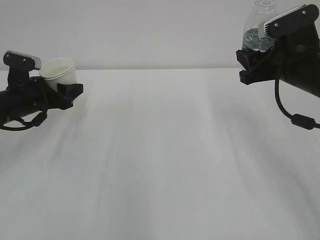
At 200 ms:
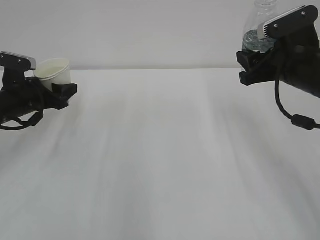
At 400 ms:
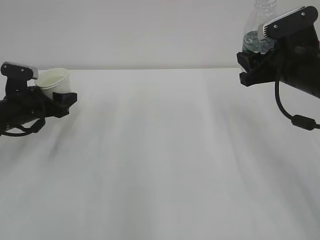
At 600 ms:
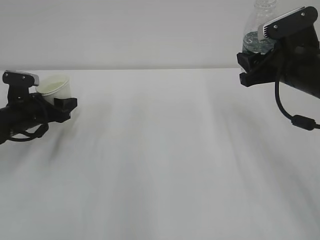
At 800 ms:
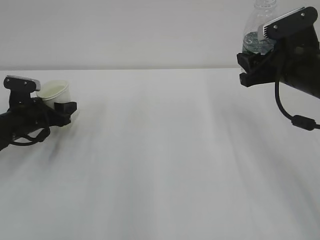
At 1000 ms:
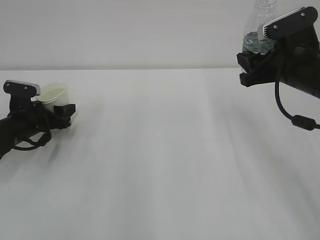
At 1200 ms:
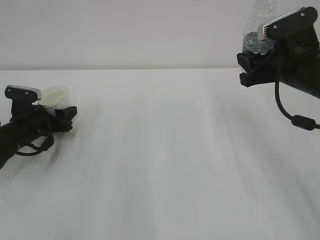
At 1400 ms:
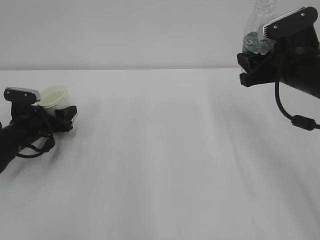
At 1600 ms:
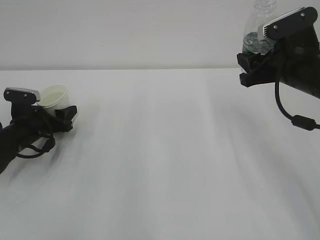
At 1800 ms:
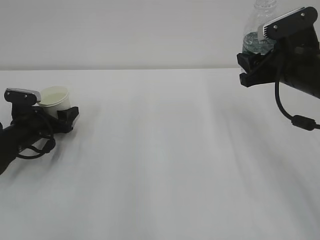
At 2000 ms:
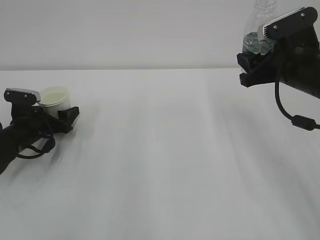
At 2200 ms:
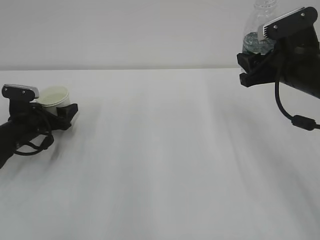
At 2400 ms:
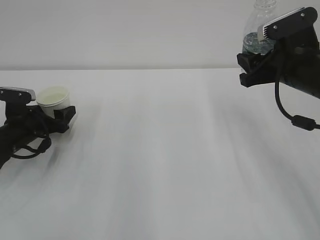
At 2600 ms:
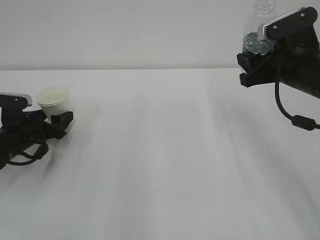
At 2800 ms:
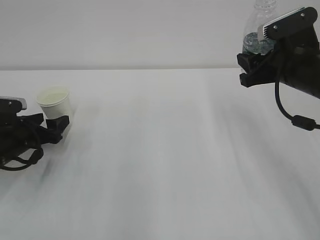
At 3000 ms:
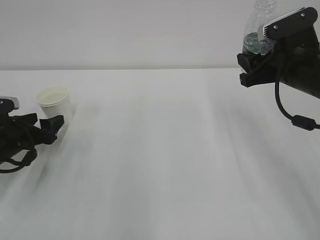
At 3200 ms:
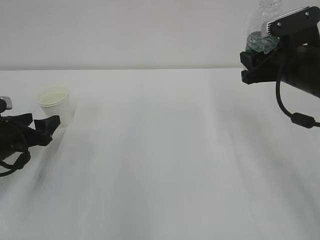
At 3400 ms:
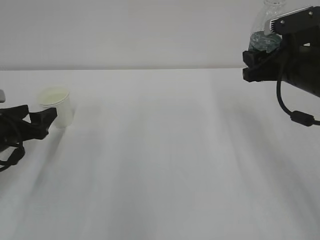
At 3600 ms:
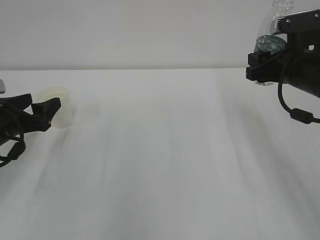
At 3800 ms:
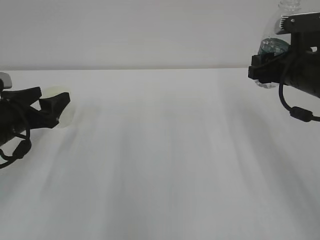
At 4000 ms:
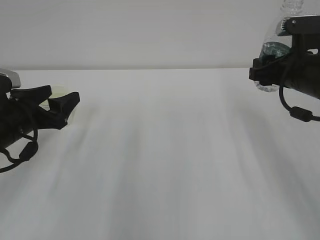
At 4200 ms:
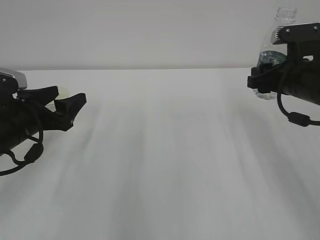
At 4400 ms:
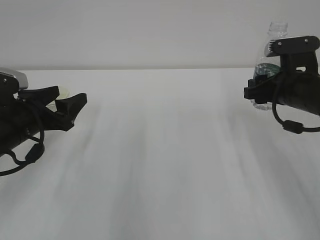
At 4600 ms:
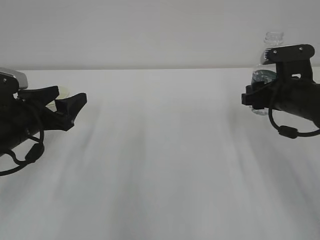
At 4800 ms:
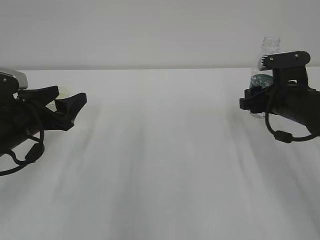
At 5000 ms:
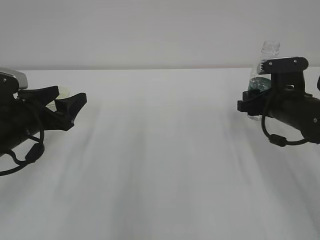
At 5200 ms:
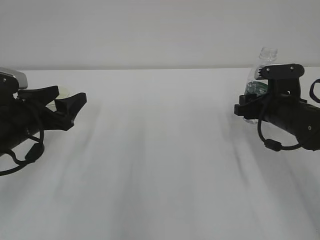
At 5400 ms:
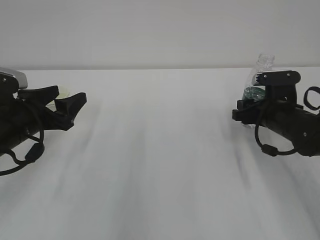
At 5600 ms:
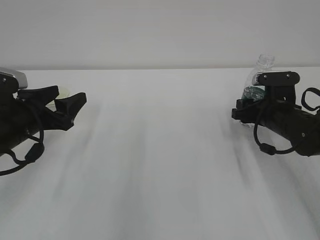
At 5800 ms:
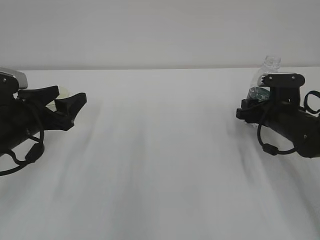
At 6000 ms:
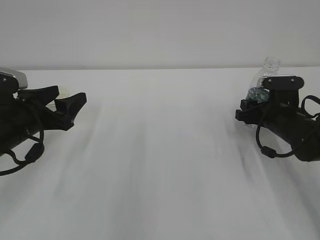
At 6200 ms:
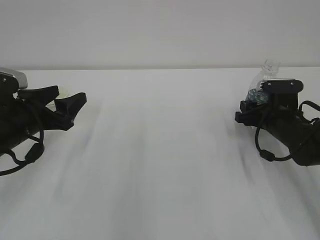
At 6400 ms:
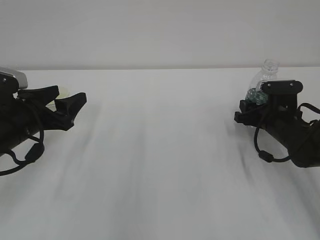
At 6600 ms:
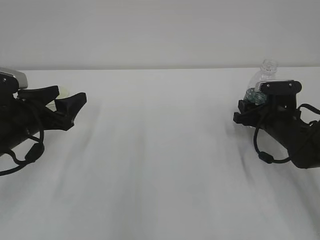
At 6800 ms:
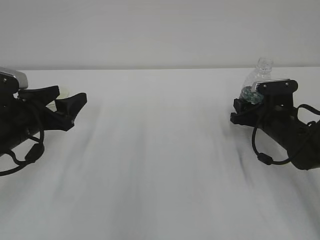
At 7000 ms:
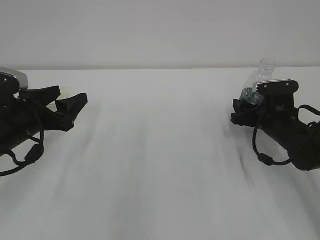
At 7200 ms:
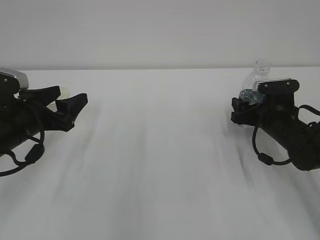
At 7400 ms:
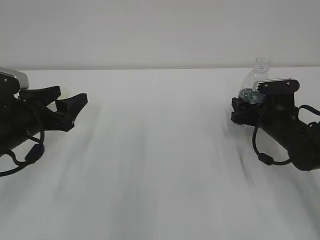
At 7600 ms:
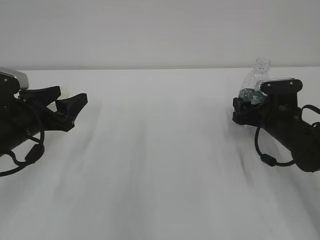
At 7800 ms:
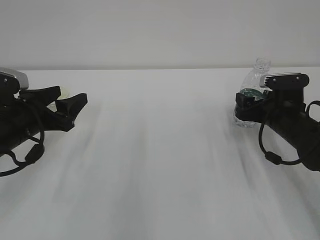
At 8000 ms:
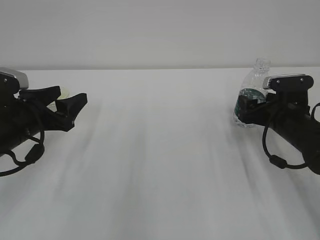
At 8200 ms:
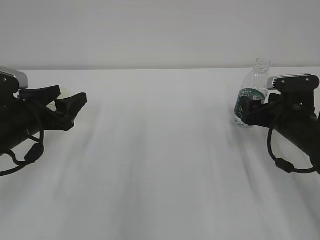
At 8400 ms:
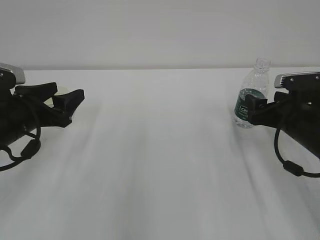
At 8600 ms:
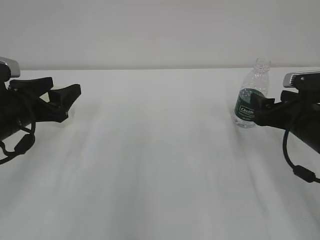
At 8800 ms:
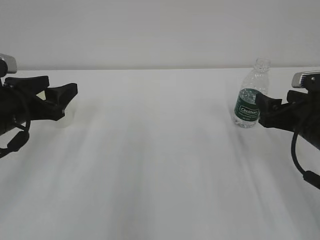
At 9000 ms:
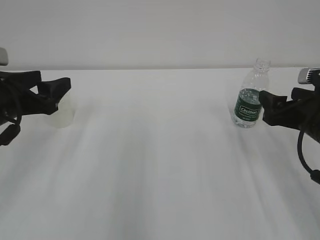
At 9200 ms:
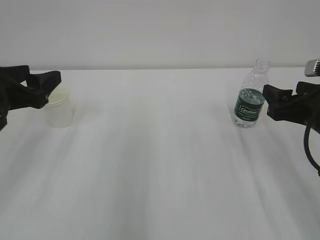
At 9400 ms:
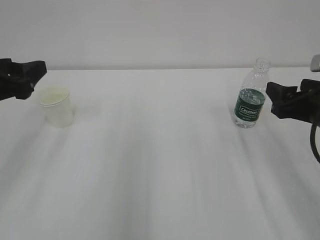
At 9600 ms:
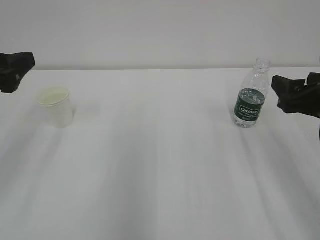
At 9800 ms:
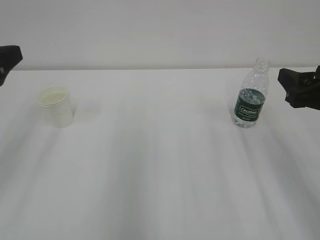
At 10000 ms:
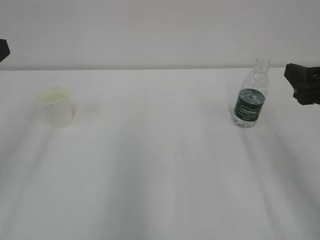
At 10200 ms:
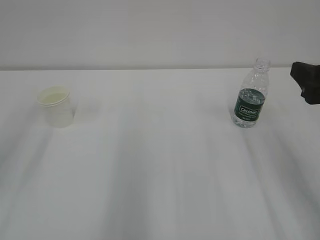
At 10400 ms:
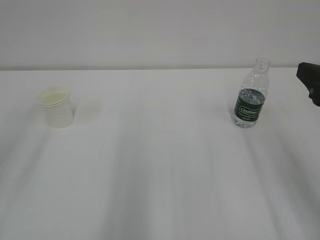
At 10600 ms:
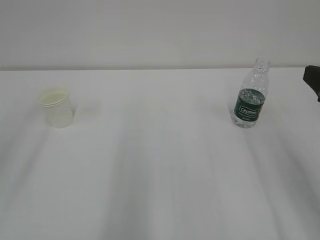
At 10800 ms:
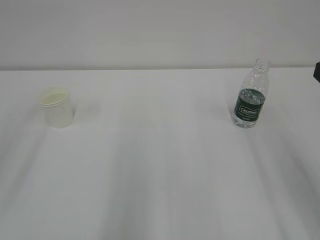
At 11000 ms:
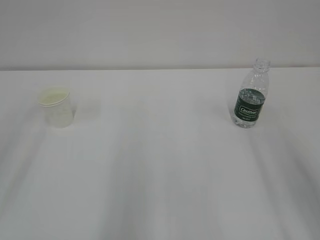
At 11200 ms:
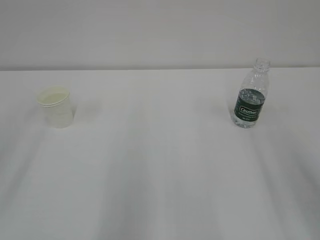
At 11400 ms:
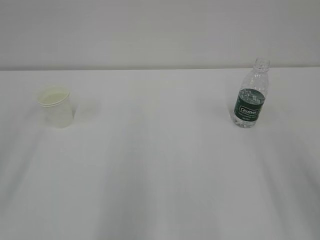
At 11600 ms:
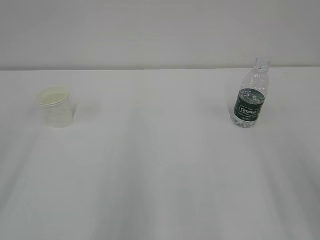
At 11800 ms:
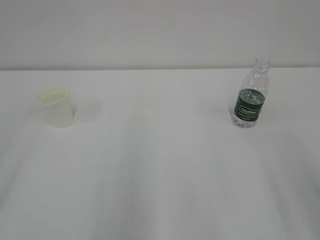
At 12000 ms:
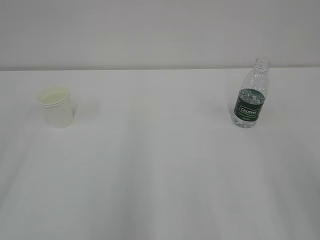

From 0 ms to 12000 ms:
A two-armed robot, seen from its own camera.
From 0 ms to 1600 ms: The left gripper shifts about 10 cm downward.
From 1600 ms to 3000 ms: The left gripper moves backward, approximately 5 cm, and opens.
From 3000 ms to 4400 ms: The left gripper heads upward and to the right, covering about 10 cm.
From 4400 ms to 6000 ms: The right gripper heads downward, covering about 10 cm.
From 6000 ms to 7600 ms: The right gripper opens up.
From 7600 ms to 9000 ms: The left gripper moves upward, some 5 cm. The right gripper goes approximately 10 cm backward and upward.
From 9000 ms to 10400 ms: Both grippers move upward and backward, approximately 15 cm.
From 10400 ms to 12000 ms: The right gripper goes about 10 cm backward.

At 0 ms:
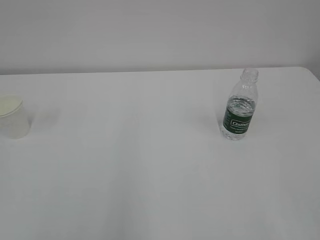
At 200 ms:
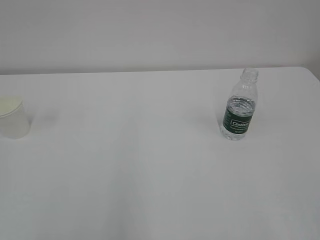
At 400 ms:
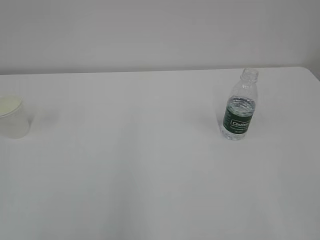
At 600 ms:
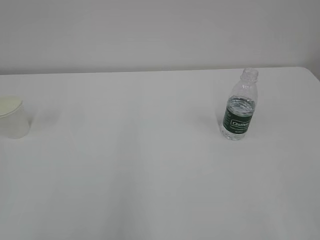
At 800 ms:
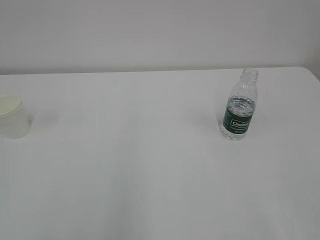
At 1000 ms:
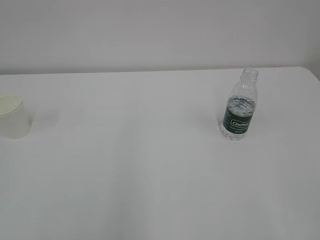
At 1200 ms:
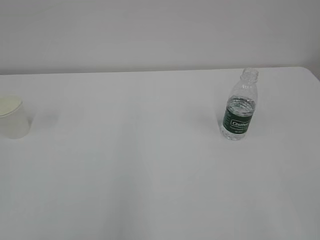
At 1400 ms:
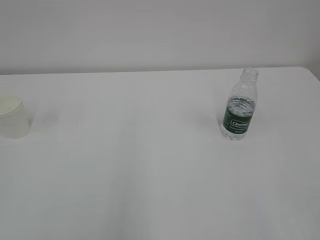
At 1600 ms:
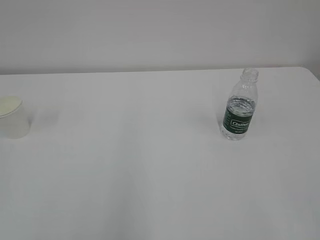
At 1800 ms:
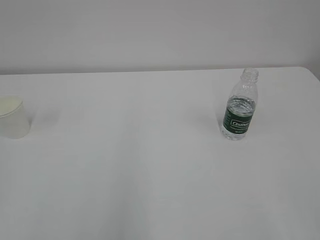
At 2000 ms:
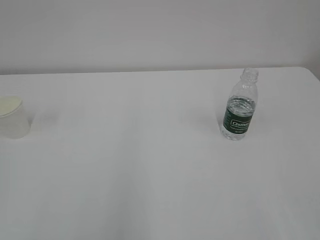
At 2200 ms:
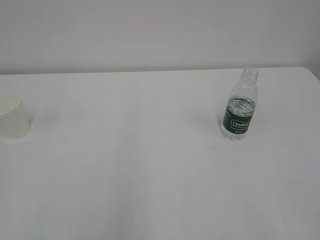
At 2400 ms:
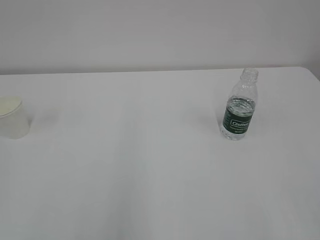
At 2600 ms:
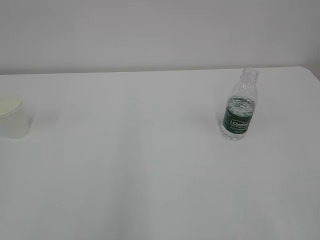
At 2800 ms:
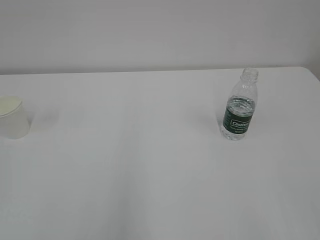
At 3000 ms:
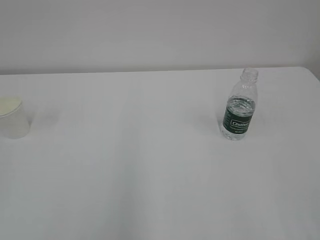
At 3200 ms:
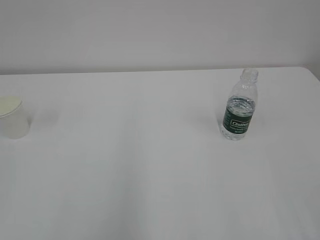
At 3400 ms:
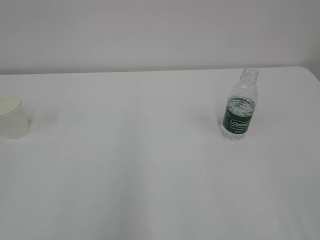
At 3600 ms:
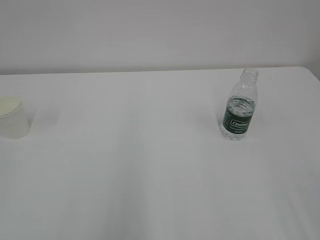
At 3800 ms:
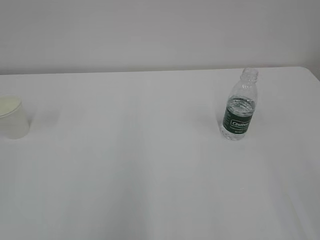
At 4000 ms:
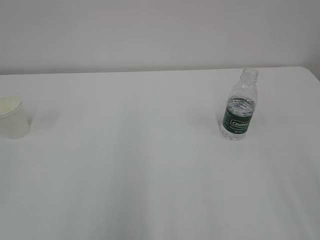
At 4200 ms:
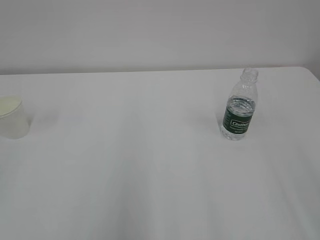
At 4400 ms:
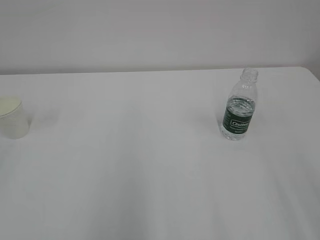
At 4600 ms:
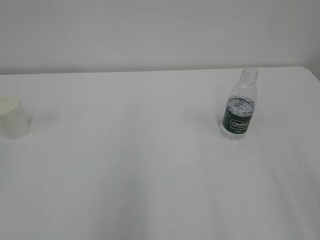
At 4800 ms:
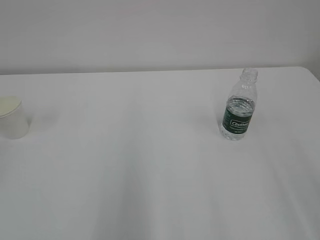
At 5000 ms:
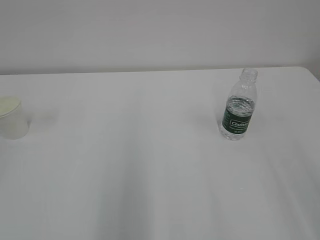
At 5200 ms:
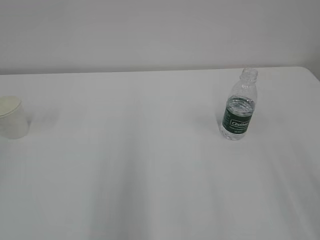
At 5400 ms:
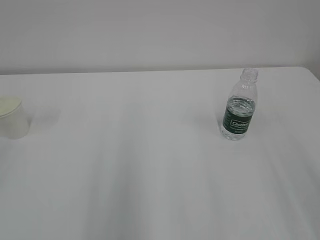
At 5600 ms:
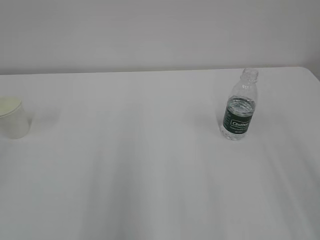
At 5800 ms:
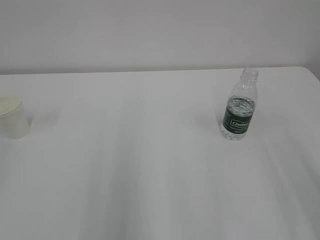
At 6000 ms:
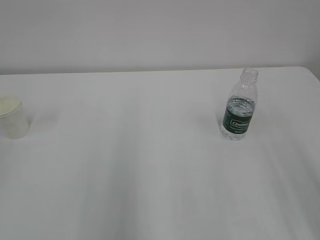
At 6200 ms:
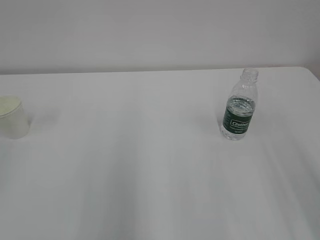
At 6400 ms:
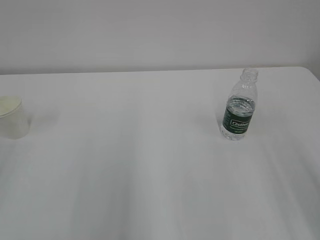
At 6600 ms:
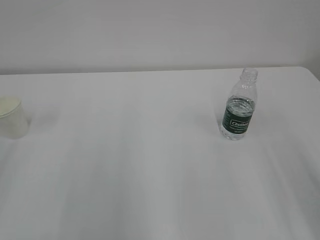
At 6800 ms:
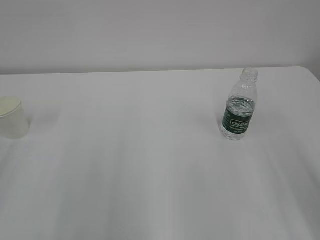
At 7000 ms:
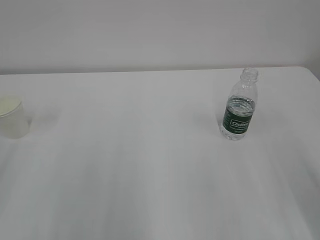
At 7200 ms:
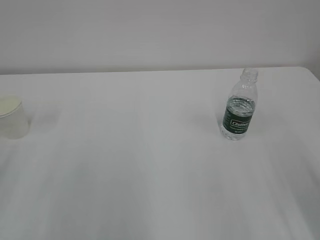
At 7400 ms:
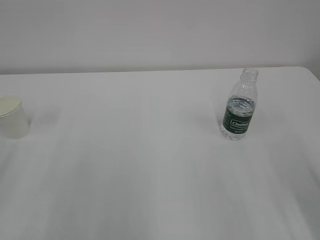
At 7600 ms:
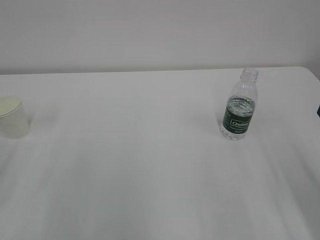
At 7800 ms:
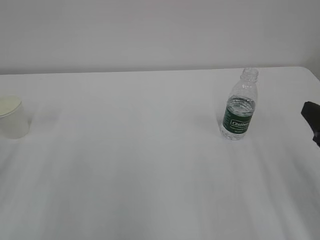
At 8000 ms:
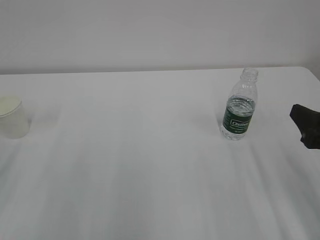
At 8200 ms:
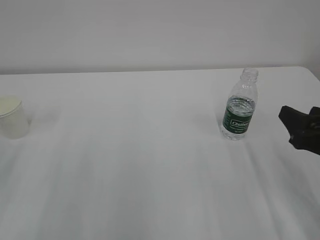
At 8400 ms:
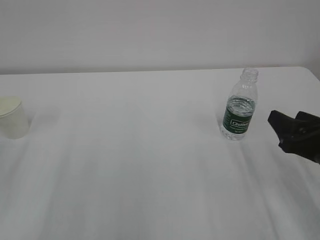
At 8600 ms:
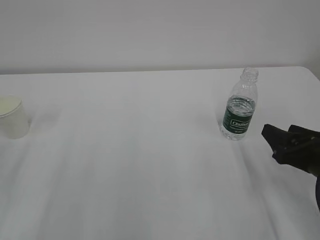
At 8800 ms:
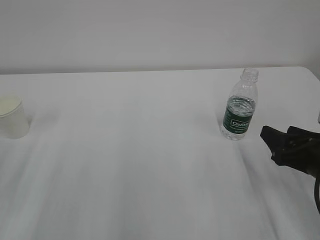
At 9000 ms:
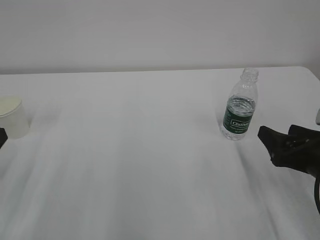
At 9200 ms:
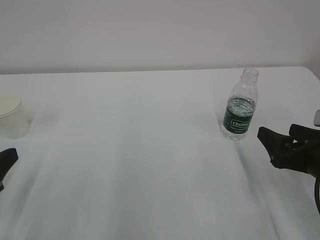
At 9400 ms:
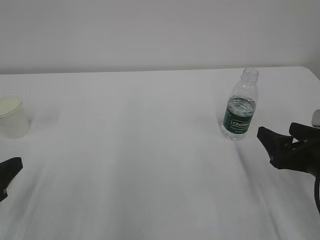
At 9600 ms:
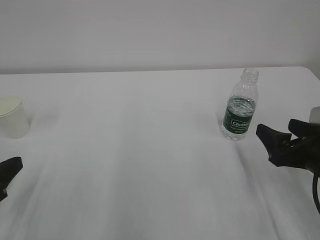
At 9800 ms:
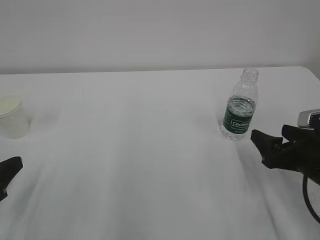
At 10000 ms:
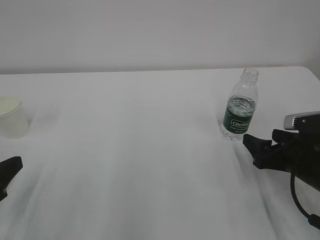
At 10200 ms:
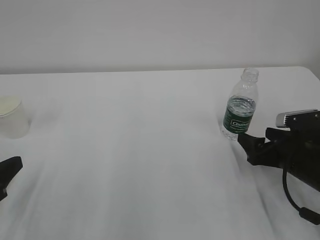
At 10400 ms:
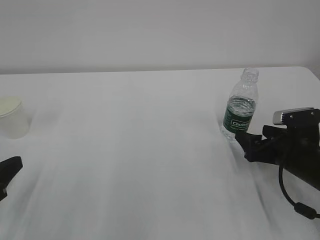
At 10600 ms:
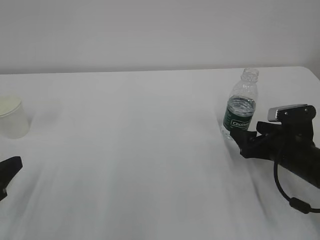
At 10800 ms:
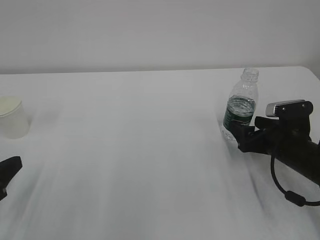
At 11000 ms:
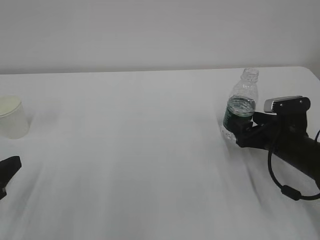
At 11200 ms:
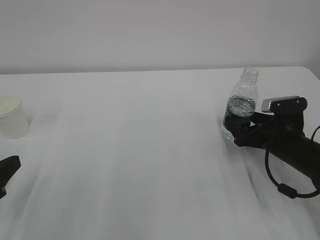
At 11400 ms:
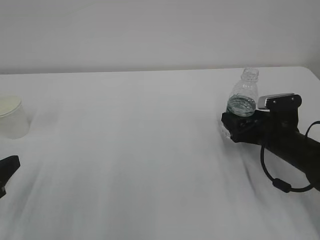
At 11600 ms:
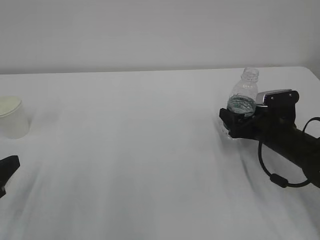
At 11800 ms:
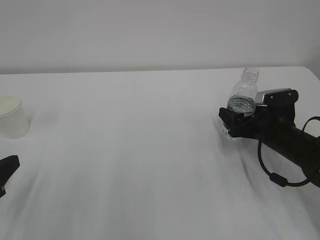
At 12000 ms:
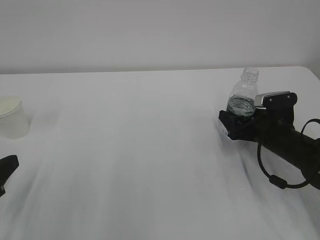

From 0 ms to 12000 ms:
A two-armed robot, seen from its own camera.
From 7600 ms to 9000 ms: The right gripper shifts about 10 cm downward and forward.
From 9000 ms to 10400 ms: The right gripper goes roughly 10 cm forward and downward.
From 10400 ms to 12000 ms: The right gripper heads forward, covering some 5 cm.
